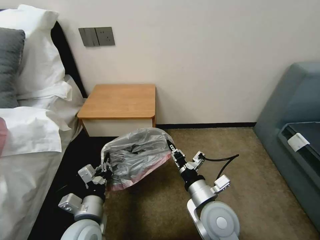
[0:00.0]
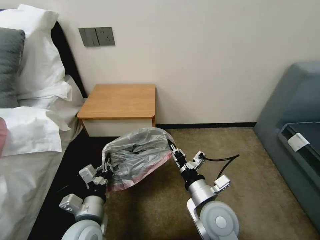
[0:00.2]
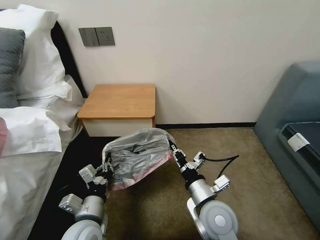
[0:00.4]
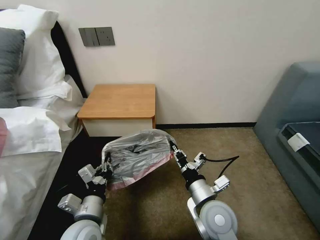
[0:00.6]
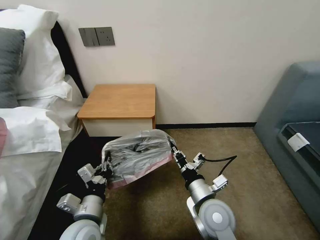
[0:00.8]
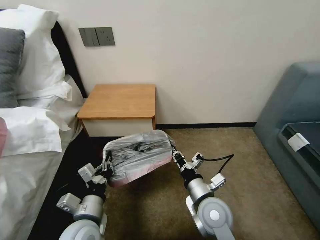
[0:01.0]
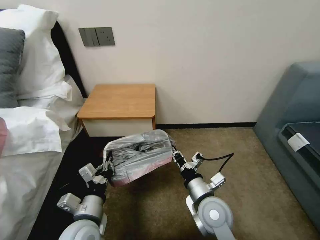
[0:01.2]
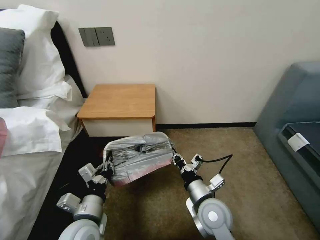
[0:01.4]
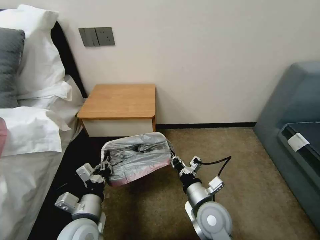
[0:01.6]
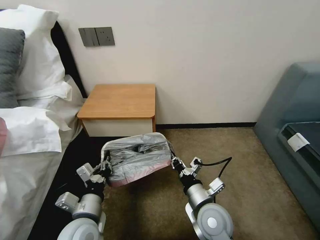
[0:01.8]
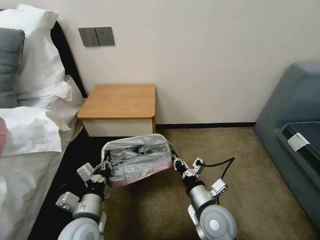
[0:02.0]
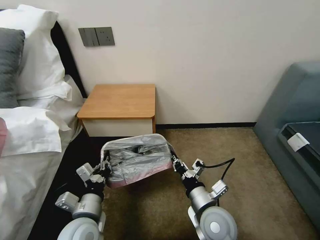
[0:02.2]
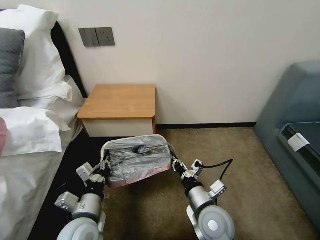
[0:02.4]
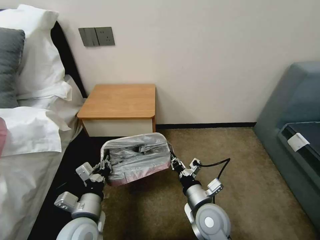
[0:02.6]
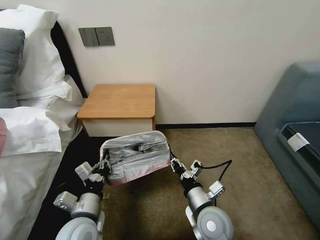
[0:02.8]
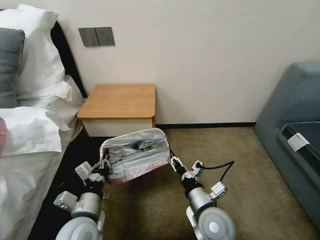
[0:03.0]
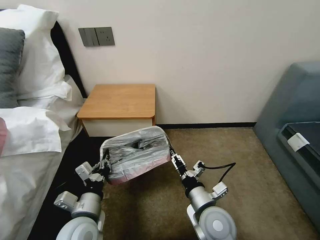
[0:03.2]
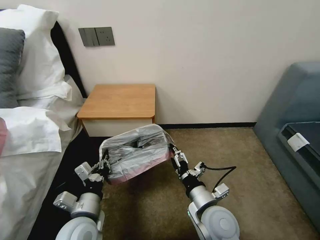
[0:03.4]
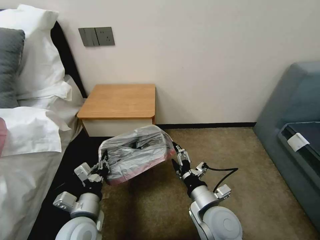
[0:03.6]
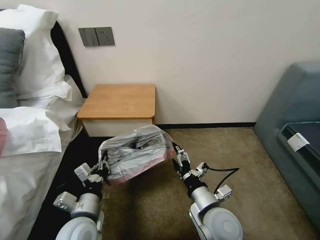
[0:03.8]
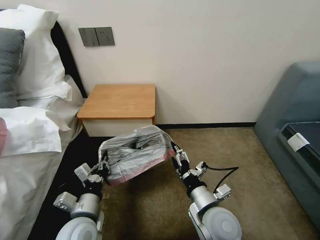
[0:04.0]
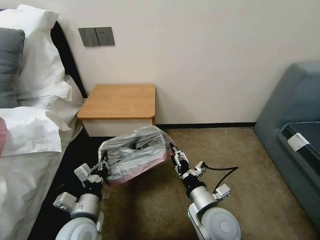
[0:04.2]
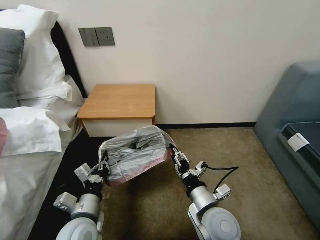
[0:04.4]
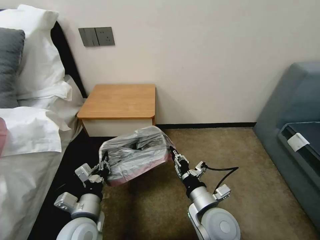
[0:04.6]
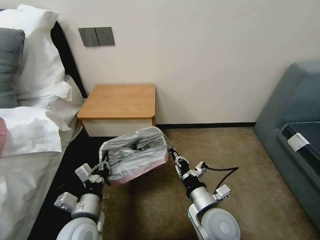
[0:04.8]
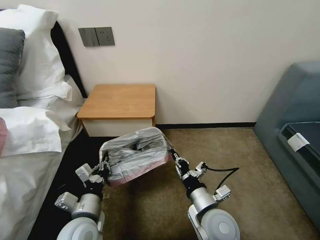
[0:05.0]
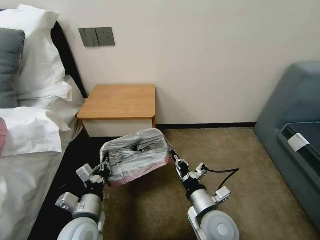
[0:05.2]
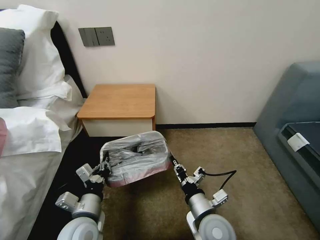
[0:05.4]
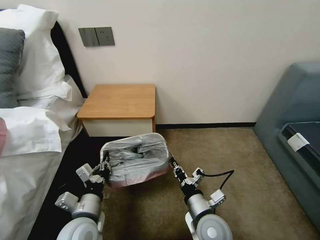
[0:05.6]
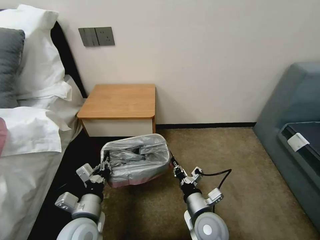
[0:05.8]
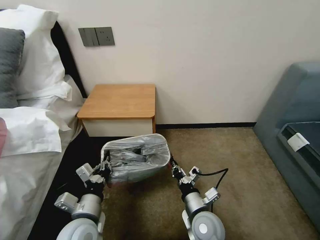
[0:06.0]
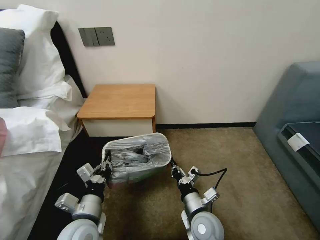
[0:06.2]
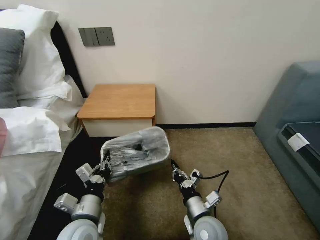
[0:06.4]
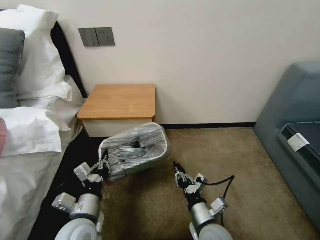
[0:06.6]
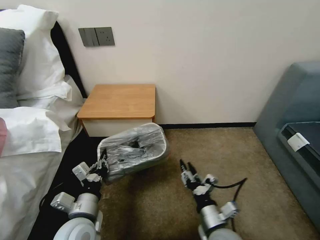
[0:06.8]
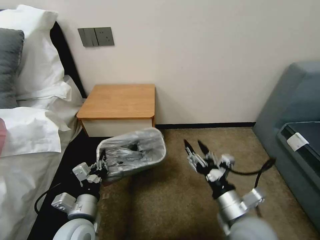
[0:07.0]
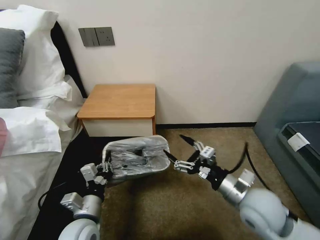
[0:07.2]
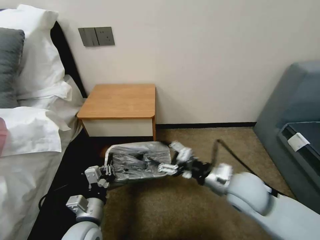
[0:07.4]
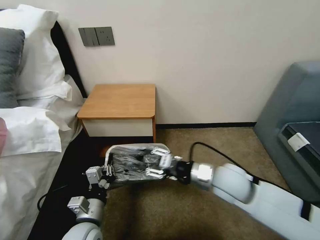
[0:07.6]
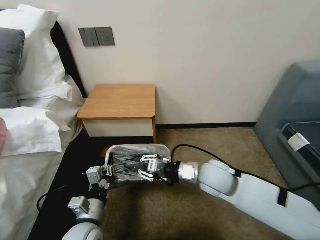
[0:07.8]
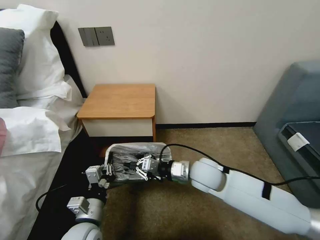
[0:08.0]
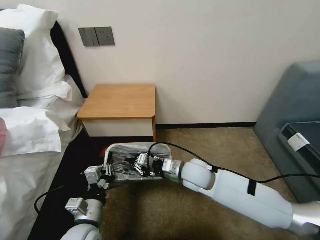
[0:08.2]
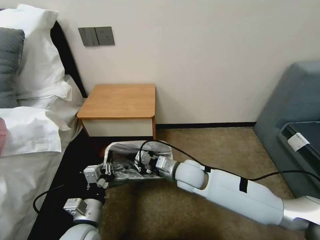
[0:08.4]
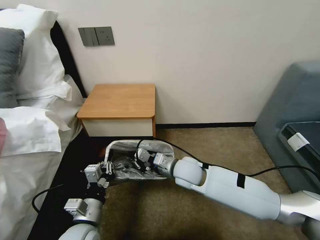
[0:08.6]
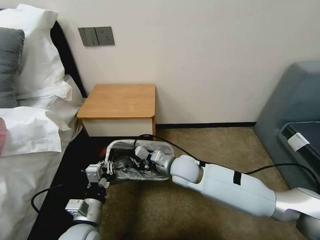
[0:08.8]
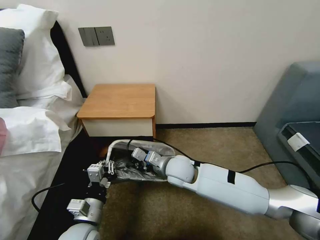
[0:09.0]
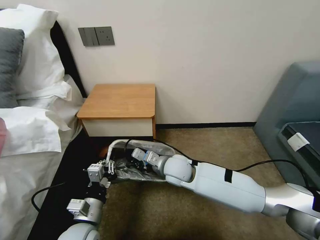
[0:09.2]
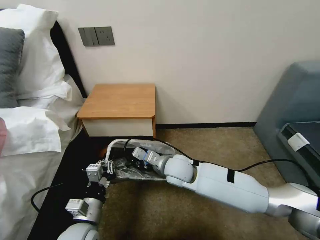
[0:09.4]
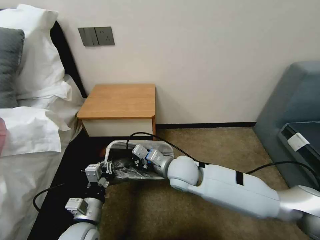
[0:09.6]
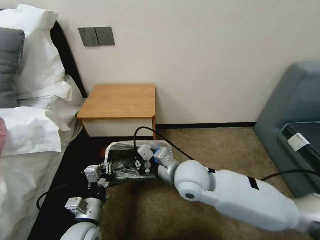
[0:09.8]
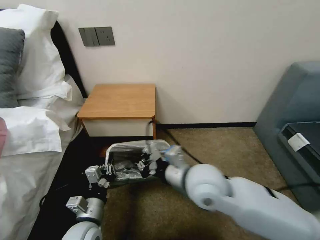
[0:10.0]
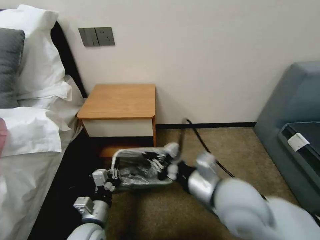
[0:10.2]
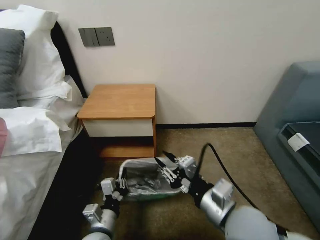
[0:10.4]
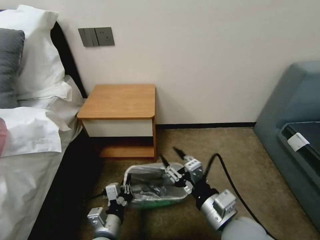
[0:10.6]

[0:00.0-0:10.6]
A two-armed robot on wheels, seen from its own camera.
Task of the whole recording: Pick up the garbage bag from the table and place it over the trash can.
0:00.0 to 0:01.6: The grippers make only small movements.
0:01.6 to 0:03.0: The right gripper opens up.
0:03.0 to 0:04.6: The right gripper opens, then closes again.
0:04.6 to 0:06.0: The right gripper travels downward by some 5 cm.
0:06.0 to 0:07.6: The right gripper heads upward and forward, covering roughly 15 cm, and opens its fingers.
0:07.6 to 0:09.0: The right gripper heads to the left, forward and downward, covering about 15 cm, and closes.
0:09.0 to 0:10.6: The right gripper moves backward and to the right, roughly 25 cm, and opens up, while the left gripper moves some 5 cm.

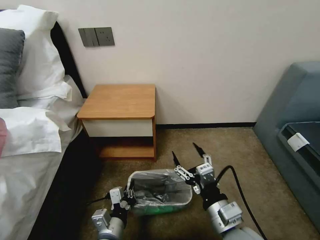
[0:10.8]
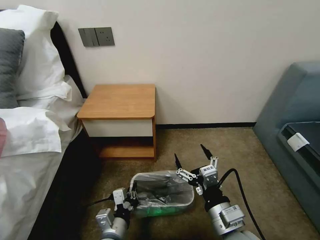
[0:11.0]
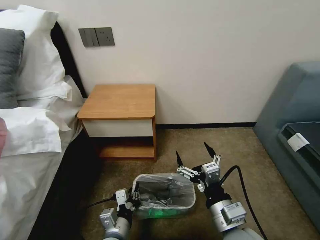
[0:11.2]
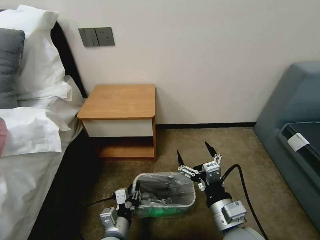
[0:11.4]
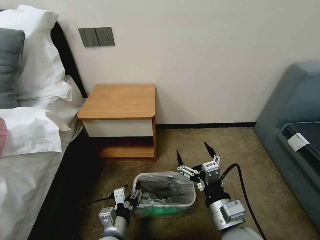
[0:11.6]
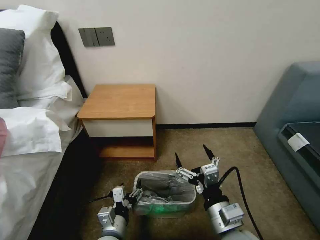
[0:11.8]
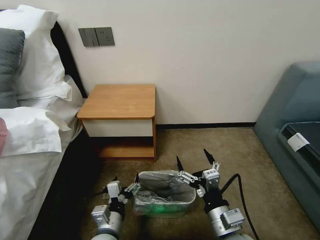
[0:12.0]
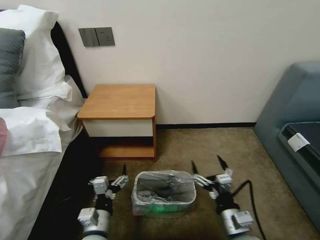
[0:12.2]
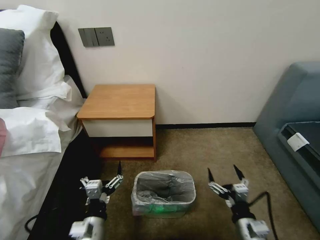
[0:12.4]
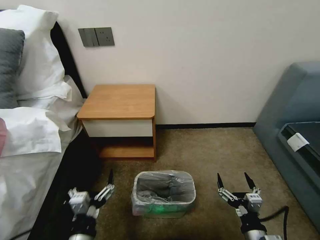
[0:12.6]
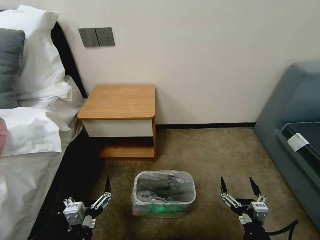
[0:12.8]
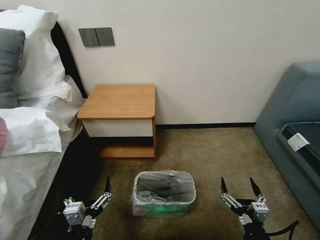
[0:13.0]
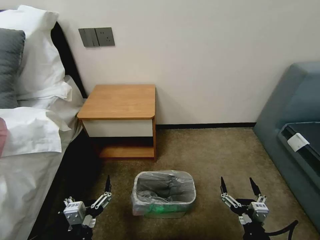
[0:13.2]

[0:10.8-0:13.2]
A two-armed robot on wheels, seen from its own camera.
Task of the whole recording: Pick up the garbage bag from the table and place it over the trash can.
0:10.8 to 0:12.0: The left gripper opens.
0:12.0 to 0:13.2: The left gripper moves backward, some 10 cm, while the right gripper is displaced to the right, downward and backward by some 15 cm.

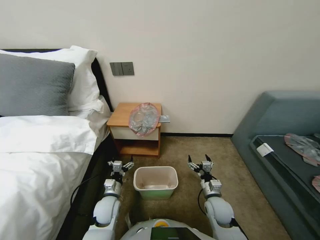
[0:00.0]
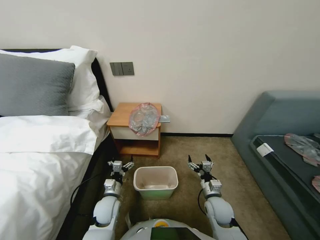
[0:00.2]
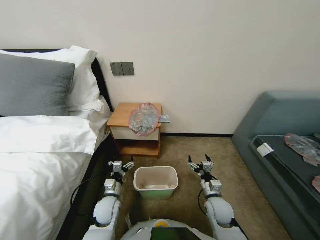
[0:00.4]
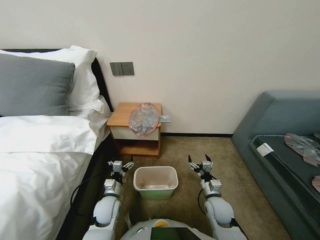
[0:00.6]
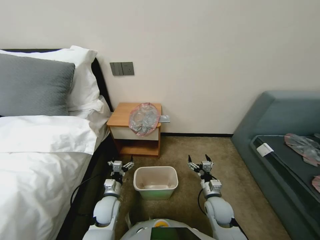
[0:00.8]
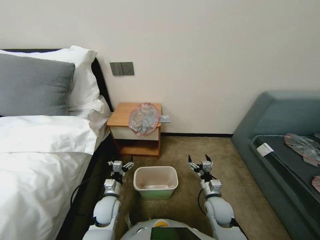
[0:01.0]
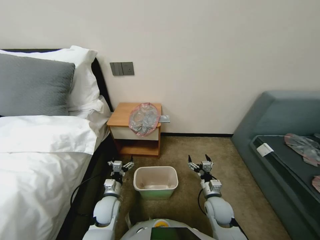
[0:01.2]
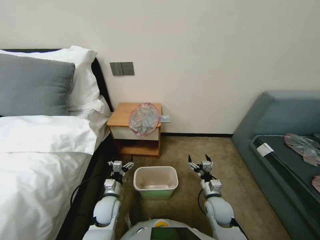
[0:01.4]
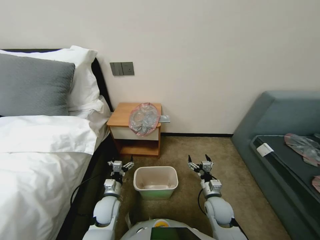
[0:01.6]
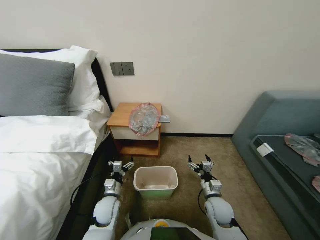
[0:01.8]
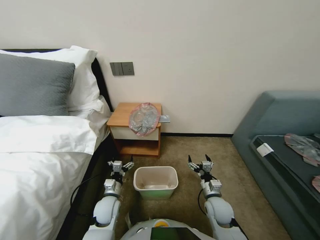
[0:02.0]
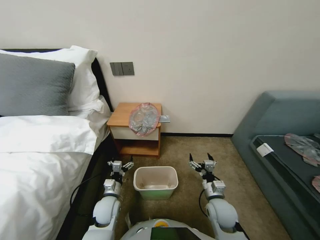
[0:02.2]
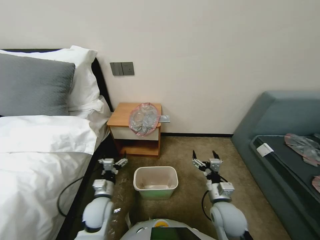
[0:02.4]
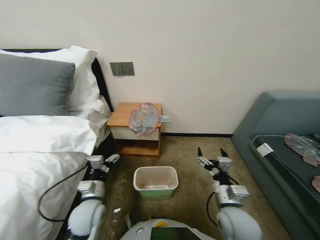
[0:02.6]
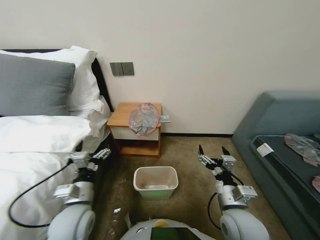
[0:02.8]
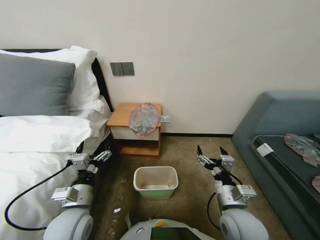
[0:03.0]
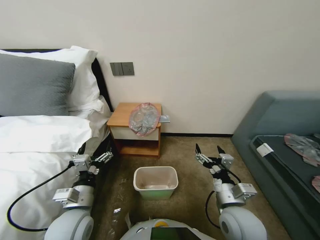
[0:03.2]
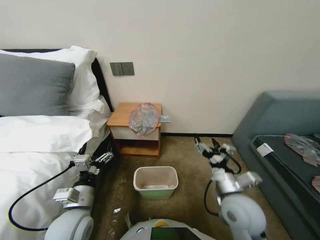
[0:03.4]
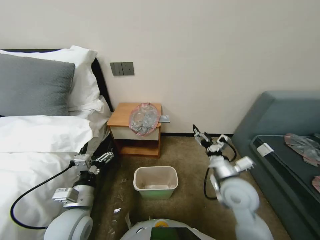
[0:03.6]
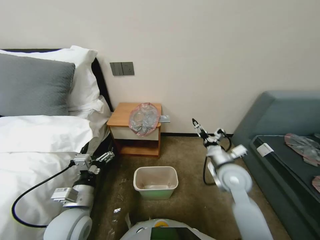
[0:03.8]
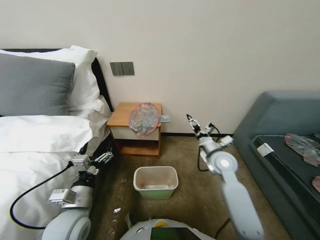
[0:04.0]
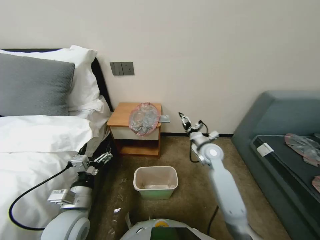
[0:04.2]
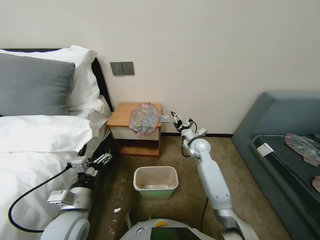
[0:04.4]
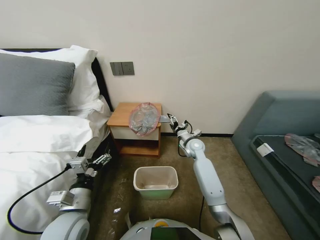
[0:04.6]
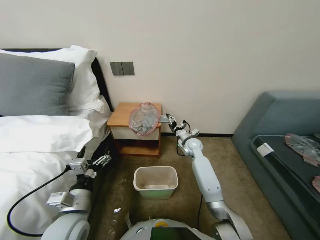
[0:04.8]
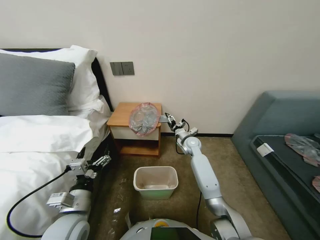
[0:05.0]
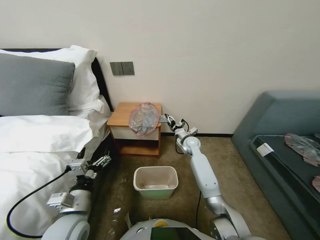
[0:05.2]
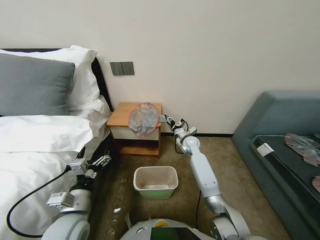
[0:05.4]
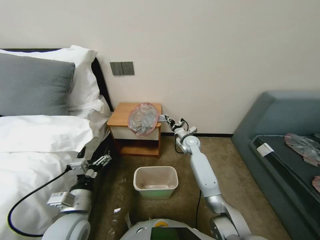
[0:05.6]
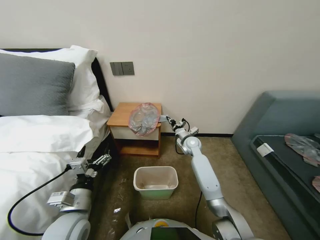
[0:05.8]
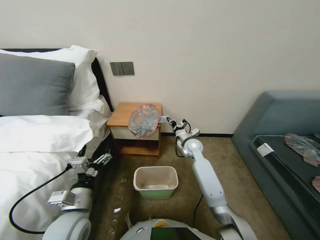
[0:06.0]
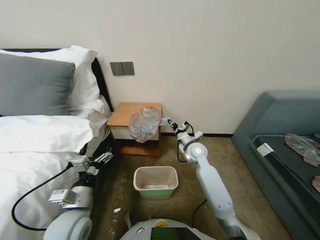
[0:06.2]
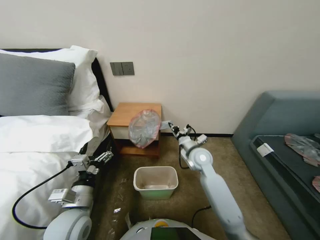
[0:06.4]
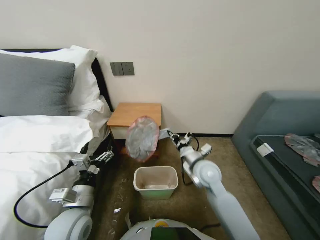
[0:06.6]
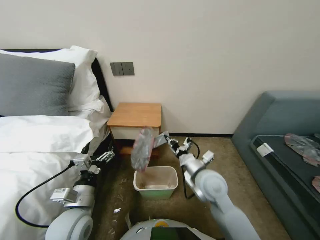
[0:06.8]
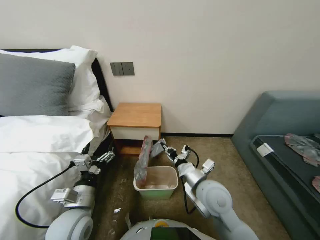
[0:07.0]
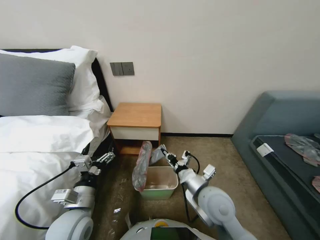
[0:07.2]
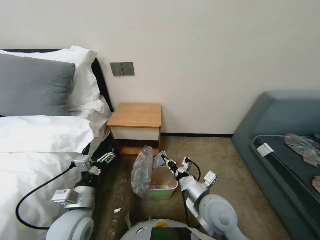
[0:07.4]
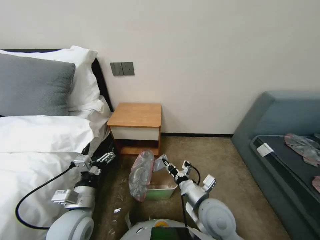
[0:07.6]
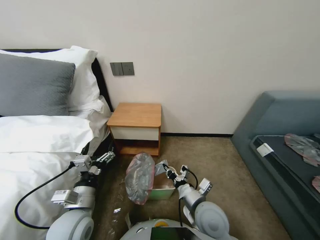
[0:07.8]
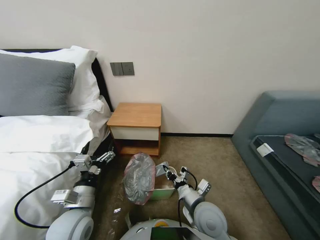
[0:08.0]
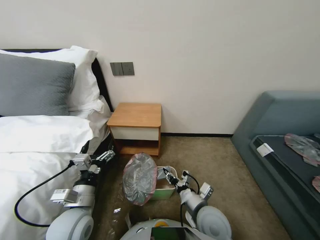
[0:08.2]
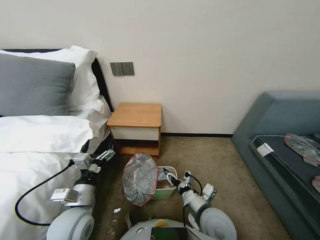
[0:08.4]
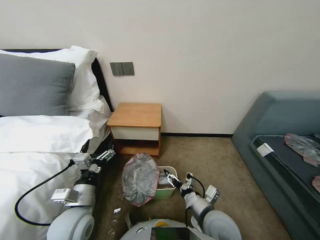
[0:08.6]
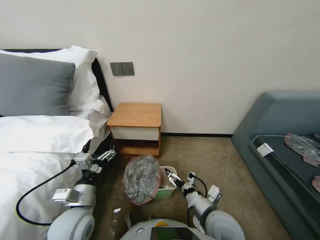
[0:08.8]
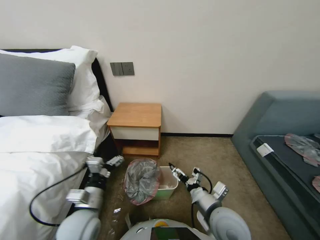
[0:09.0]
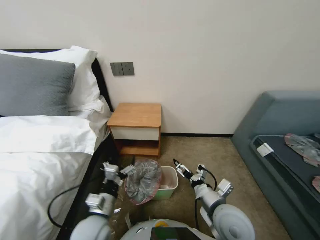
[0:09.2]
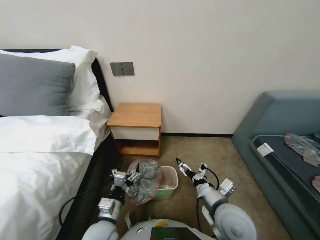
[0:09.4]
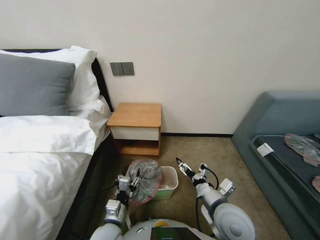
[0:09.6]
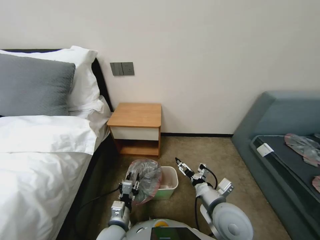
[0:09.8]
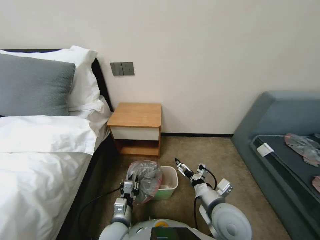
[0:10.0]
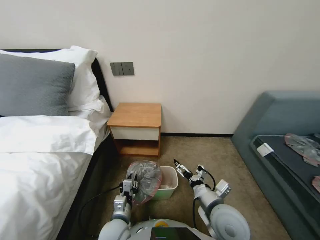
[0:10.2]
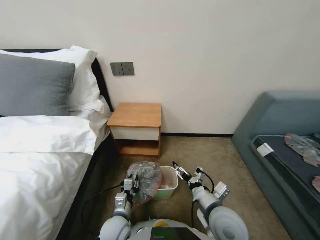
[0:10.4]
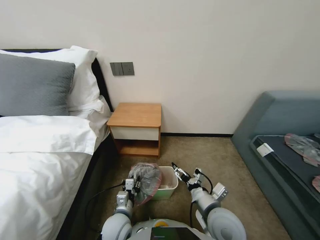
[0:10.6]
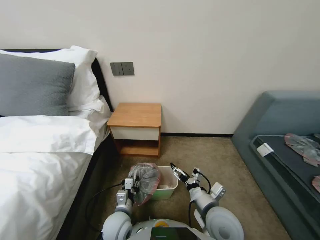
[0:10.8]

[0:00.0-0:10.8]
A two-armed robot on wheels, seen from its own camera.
Task of the whole recording: Pick up the garbage bag from the table and place it over the trash can.
0:01.6 to 0:03.0: The grippers both shift upward and backward by approximately 15 cm.
0:03.0 to 0:04.6: The right gripper moves forward, approximately 30 cm.
0:04.6 to 0:06.2: The right gripper closes up.
0:06.2 to 0:07.8: The right gripper is displaced backward by roughly 25 cm.
0:07.8 to 0:09.2: The right gripper opens up.
0:09.2 to 0:10.8: The left gripper moves downward and to the right, about 10 cm, and closes its fingers.
